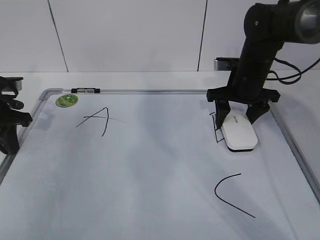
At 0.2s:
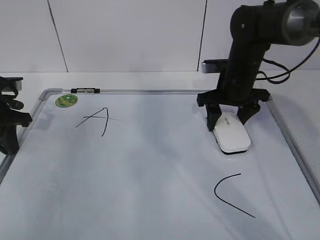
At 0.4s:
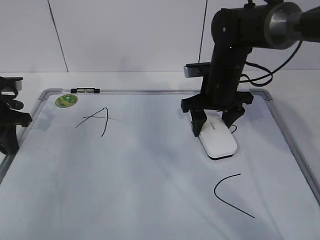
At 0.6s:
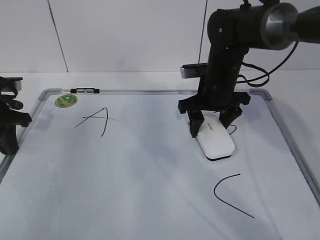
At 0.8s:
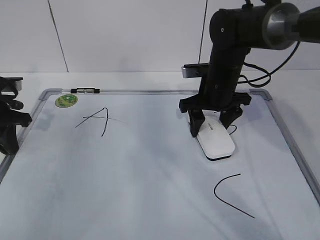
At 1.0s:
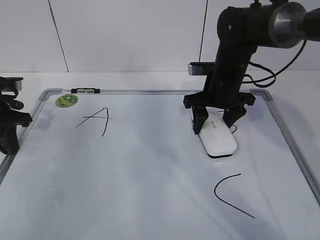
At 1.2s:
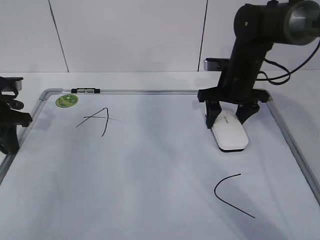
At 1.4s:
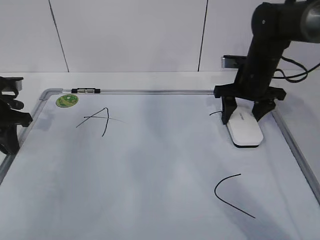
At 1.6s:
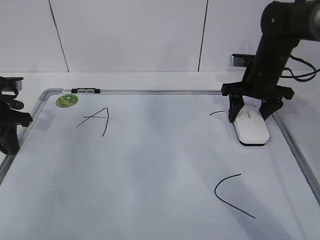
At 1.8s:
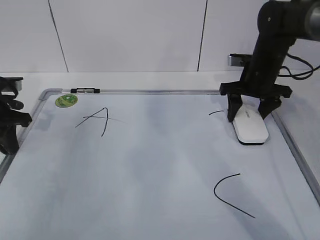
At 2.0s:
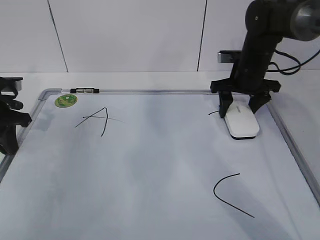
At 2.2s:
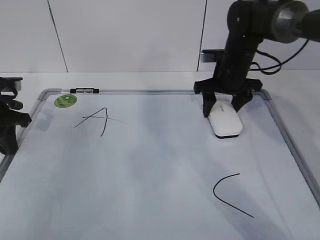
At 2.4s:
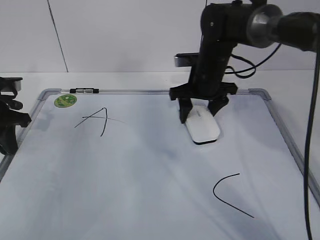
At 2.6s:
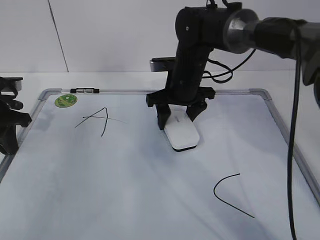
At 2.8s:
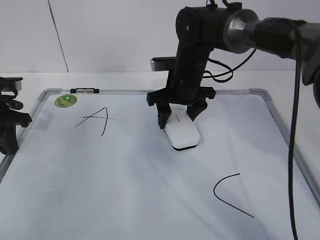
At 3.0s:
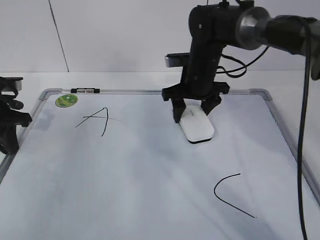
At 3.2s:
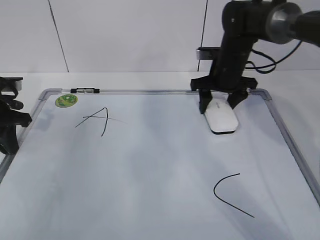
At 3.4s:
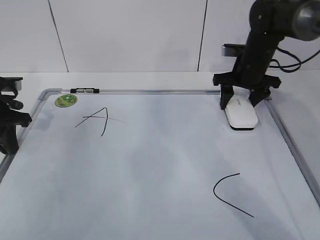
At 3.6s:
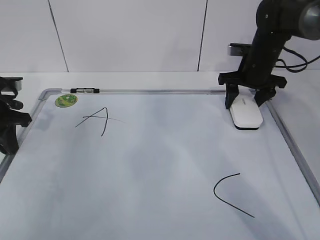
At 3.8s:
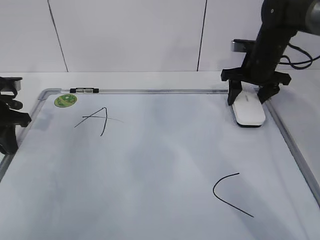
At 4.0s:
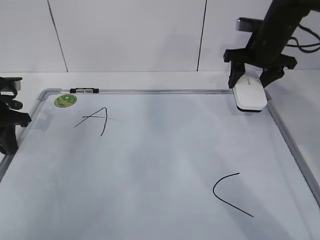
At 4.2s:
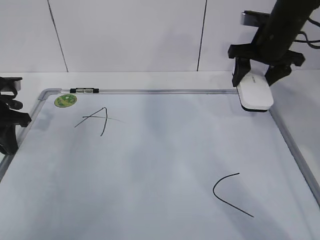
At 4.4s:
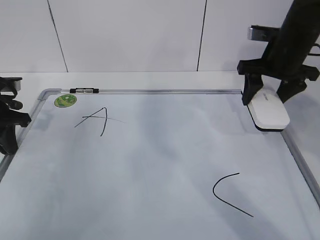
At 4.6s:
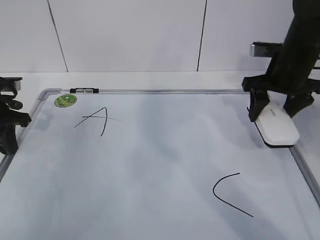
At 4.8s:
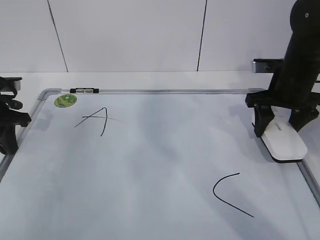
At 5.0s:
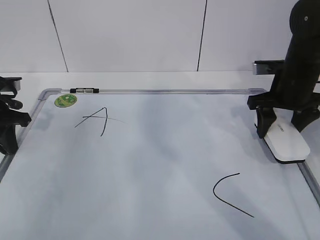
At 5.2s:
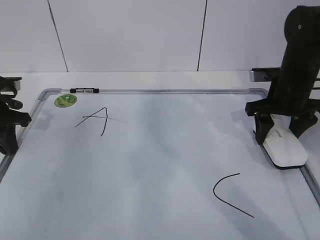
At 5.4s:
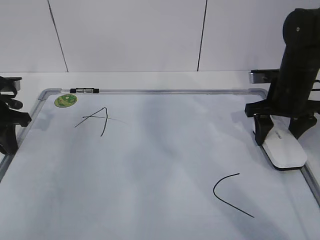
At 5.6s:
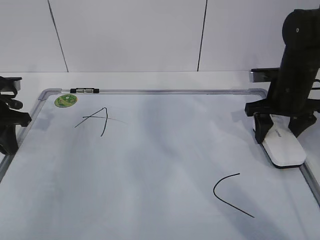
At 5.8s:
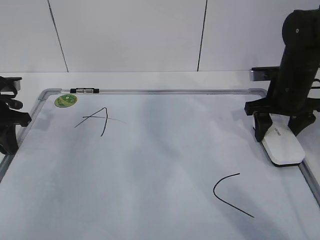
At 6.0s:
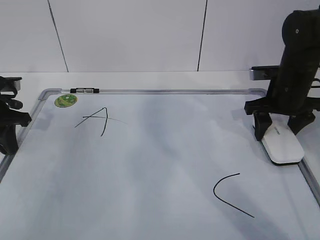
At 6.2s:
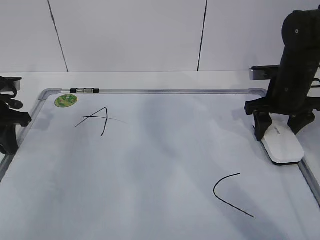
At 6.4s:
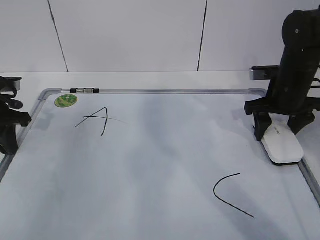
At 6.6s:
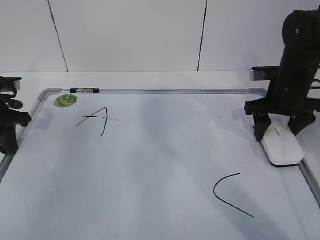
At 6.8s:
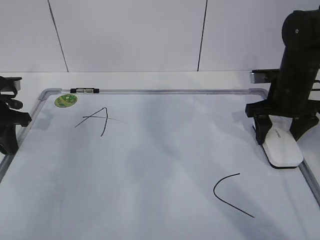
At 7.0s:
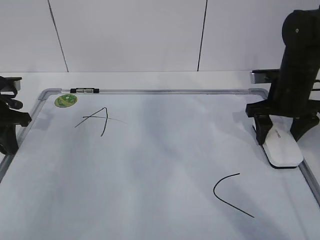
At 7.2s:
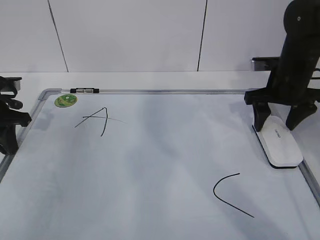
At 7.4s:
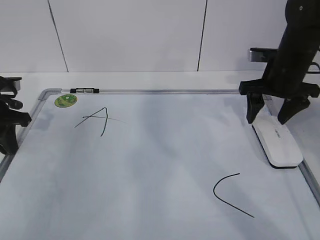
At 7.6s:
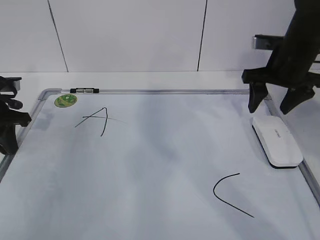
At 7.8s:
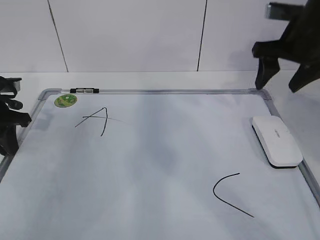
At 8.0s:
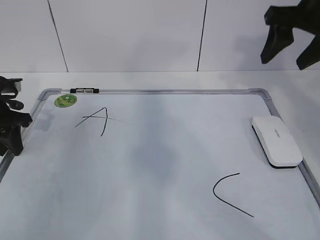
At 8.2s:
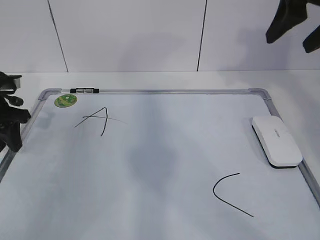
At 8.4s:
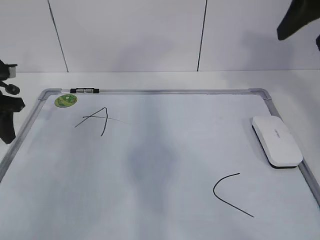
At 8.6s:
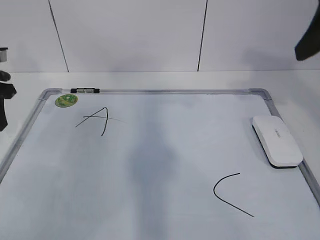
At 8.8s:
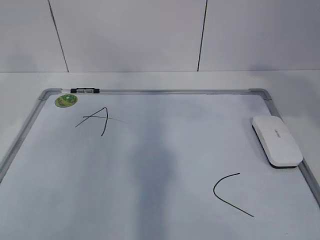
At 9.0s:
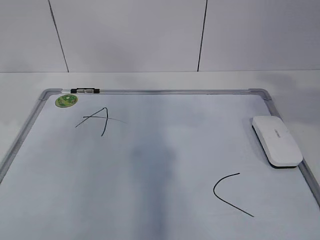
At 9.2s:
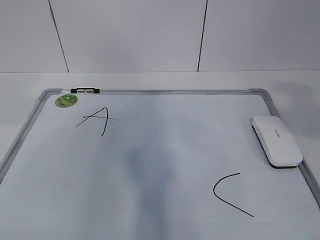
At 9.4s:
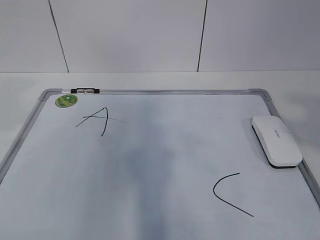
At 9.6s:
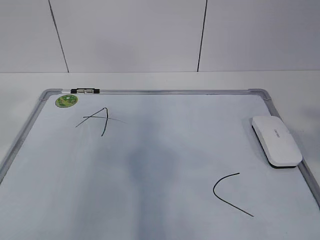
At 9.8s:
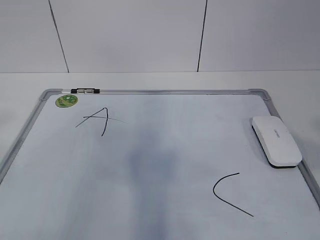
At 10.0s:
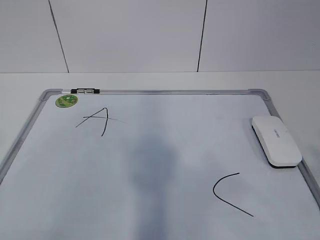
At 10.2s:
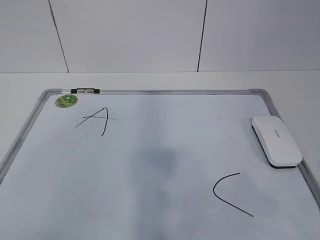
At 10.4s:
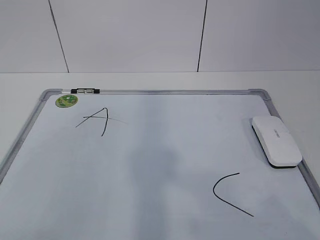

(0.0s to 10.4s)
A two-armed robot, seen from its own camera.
Task of the whole recording: pick up the eraser on the blackboard and erase the letter "B".
Step, 0.4s - 2.6s: Put down the eraser with your right hand.
0.0s - 1.4s: The right gripper reaches approximately 5 cm to the left, then returns.
1.4s - 3.0s: The right gripper is displaced to the left by roughly 10 cm.
3.0s - 4.4s: The right gripper goes approximately 15 cm to the right and upward.
4.4s - 6.0s: The right gripper travels downward by about 5 cm.
6.0s - 7.4s: There are only small adjustments of the grippers.
7.4s - 9.0s: The left gripper moves upward and backward, about 20 cm, and opens up. The right gripper shifts about 30 cm backward and upward.
9.0s - 10.4s: The right gripper goes about 20 cm backward and downward. Meanwhile the left gripper heads backward, covering approximately 30 cm.
